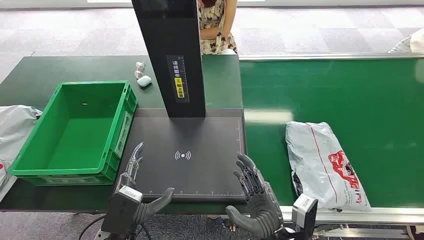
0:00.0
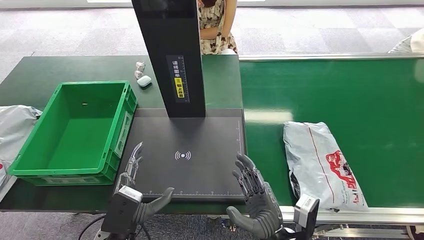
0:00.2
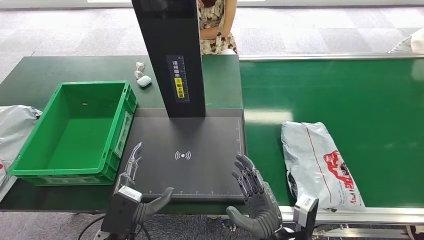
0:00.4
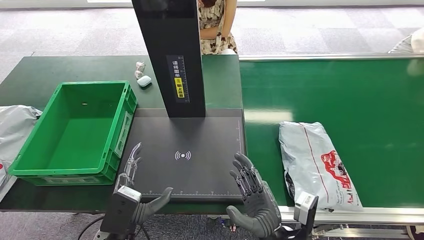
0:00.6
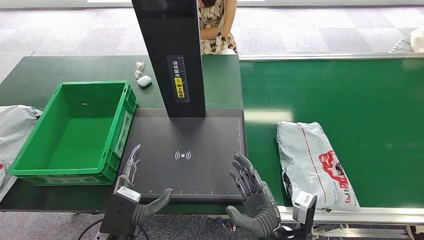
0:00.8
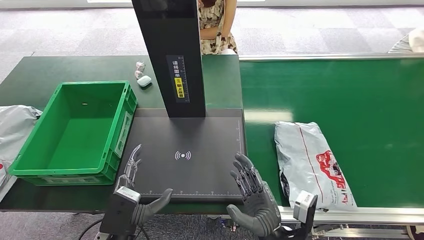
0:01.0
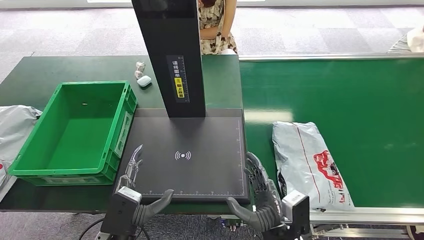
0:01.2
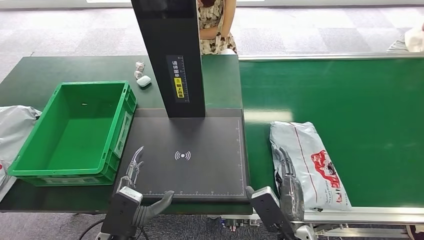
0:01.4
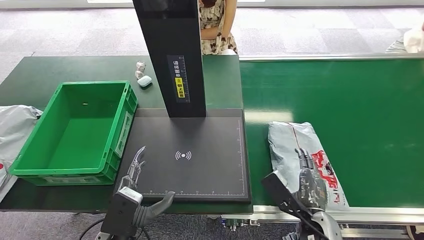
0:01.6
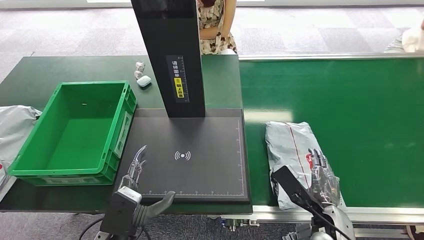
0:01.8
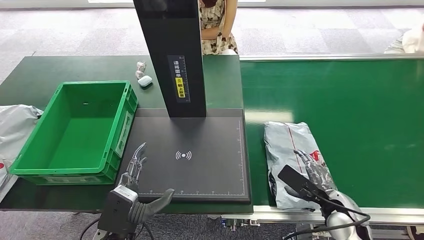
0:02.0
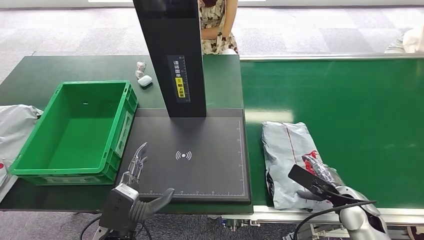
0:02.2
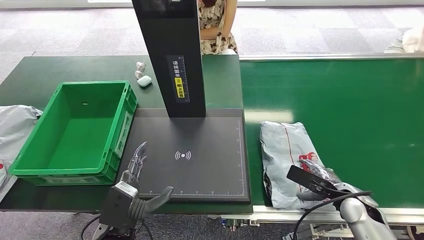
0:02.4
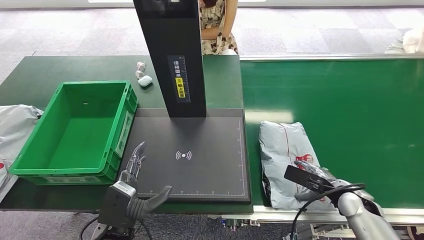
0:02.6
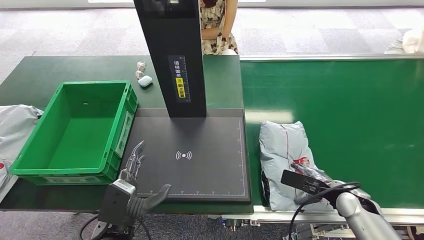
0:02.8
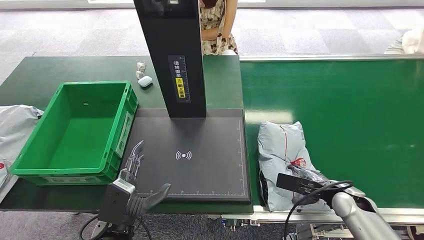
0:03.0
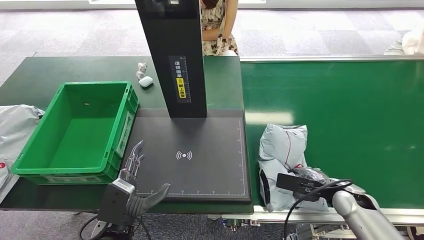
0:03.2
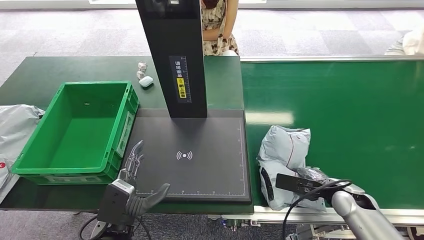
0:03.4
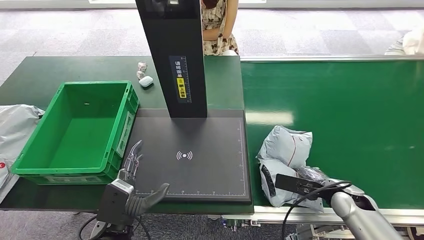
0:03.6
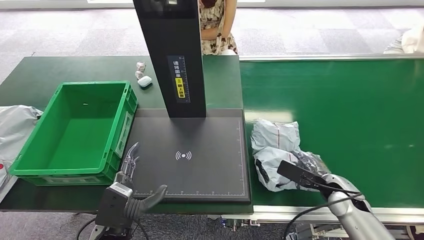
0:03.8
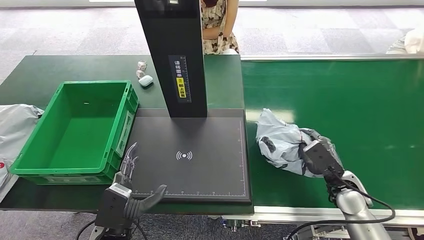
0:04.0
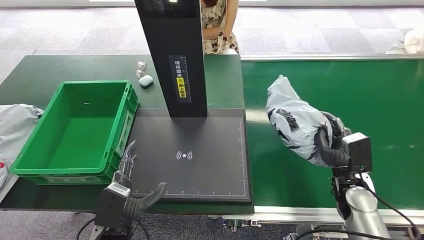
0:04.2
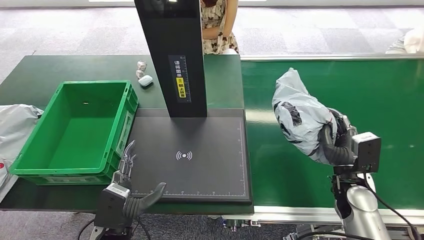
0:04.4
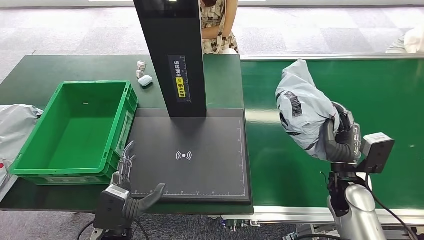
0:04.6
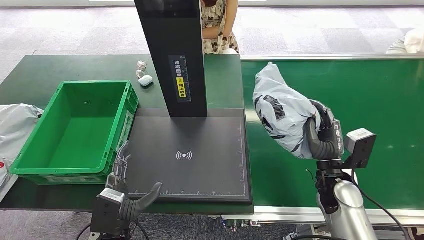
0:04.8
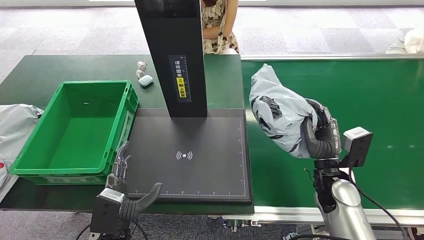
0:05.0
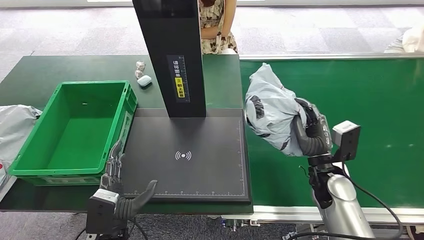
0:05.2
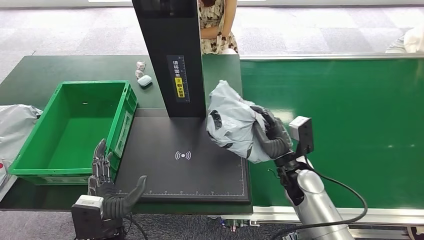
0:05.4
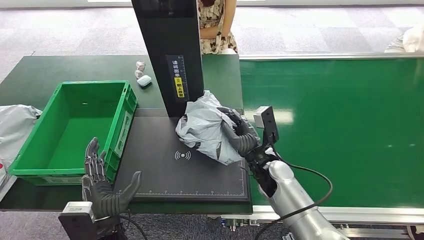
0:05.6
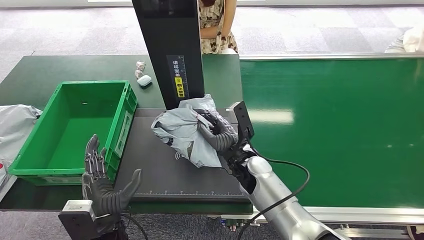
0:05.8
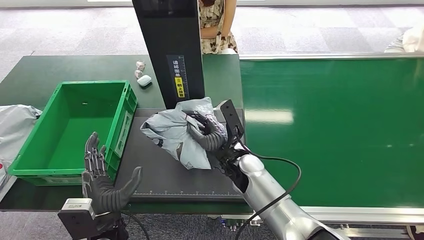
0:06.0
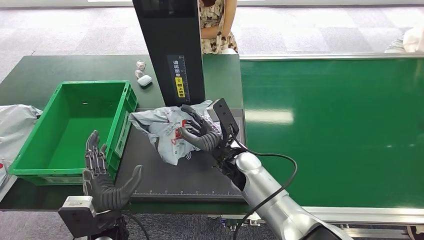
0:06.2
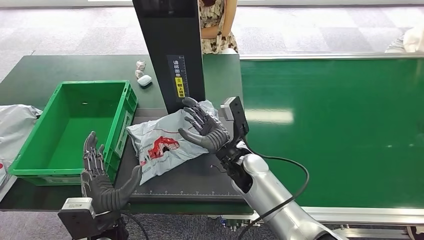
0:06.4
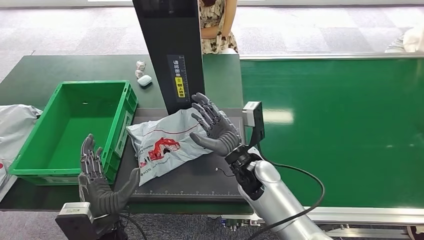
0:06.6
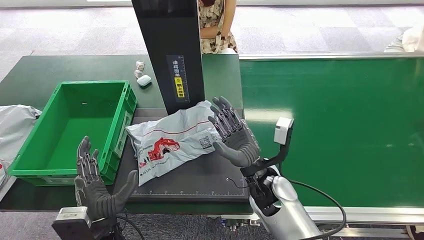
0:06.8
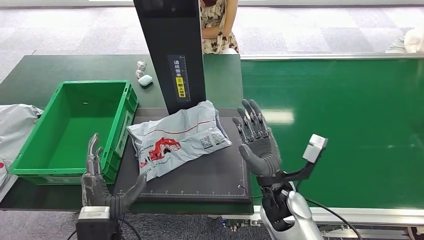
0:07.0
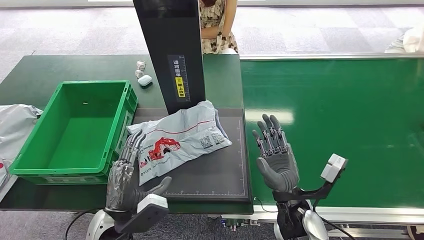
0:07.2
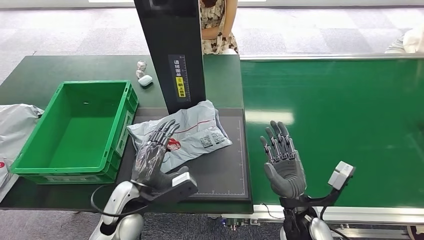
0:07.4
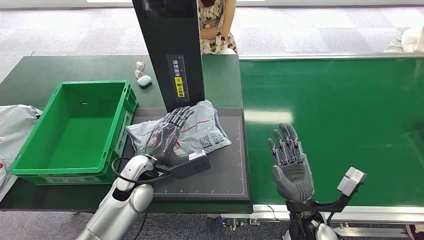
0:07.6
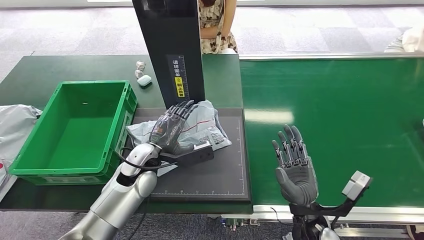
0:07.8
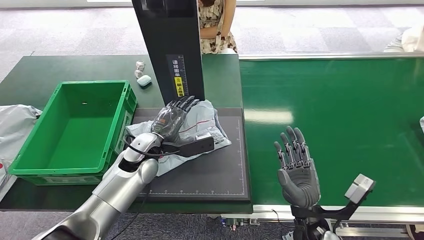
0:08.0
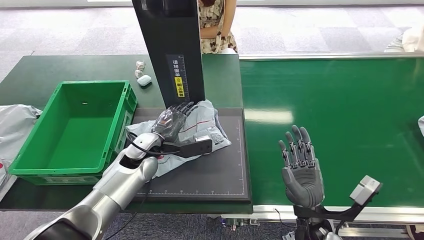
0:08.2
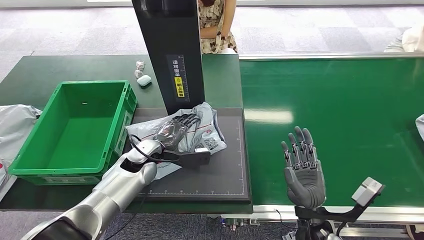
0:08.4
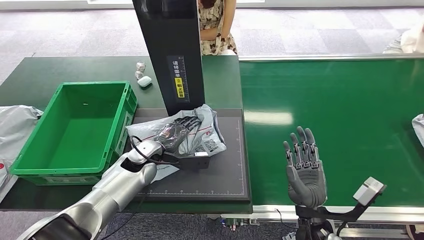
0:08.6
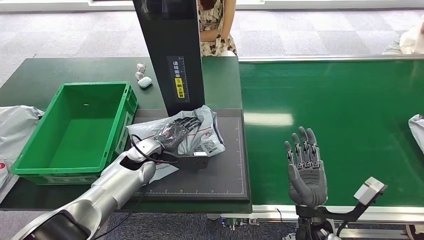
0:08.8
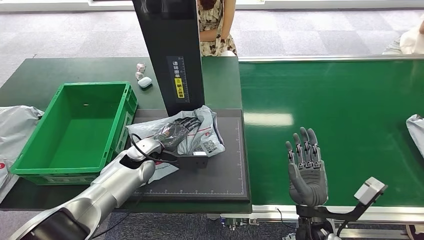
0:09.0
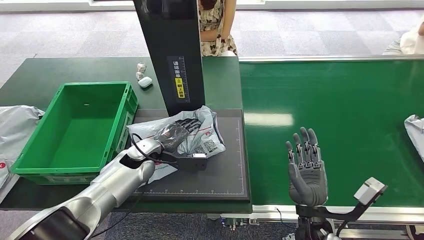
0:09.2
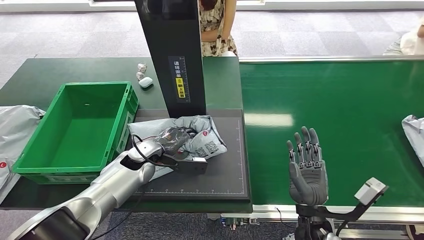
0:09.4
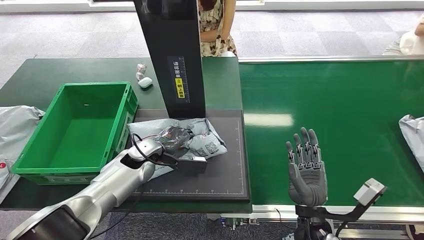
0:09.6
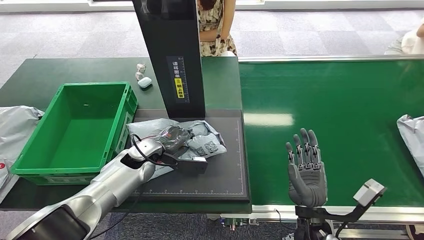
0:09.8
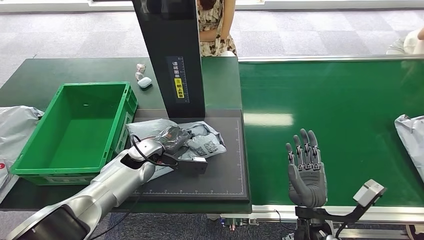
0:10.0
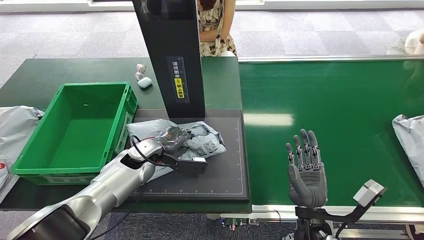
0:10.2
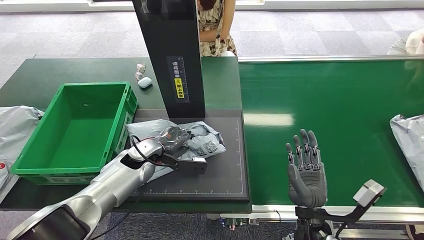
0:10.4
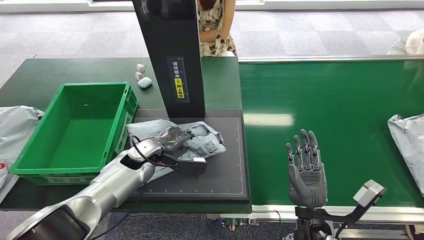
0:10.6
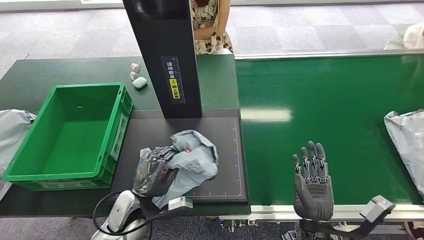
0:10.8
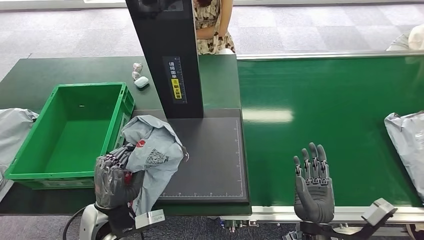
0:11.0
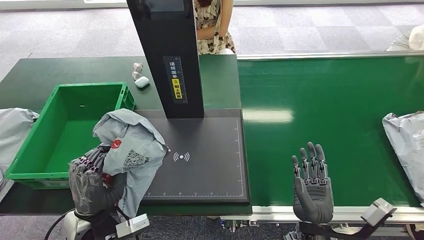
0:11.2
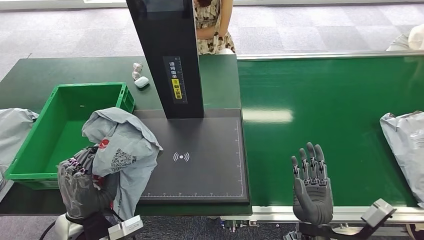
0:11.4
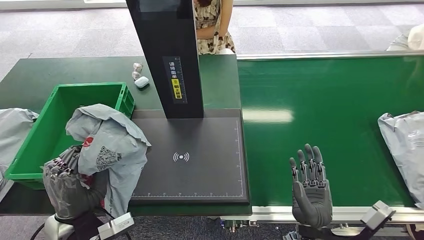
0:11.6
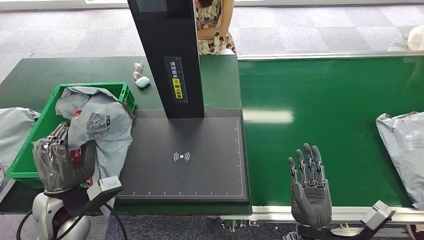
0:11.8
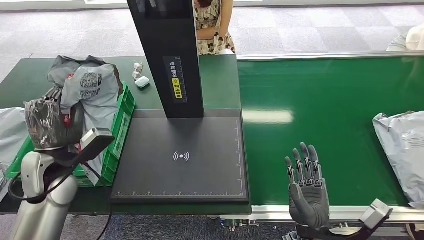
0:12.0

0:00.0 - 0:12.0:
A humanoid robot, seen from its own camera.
Step, 0:00.0 - 0:04.8: Pick up the package from the conveyor belt.
Step, 0:05.2 - 0:07.8: Place the package onto the inbound machine.
0:01.6 - 0:03.0: The right hand shifts roughly 15 cm to the right and forward.
0:03.0 - 0:04.4: The right hand heads upward, covering about 5 cm.
0:06.0 - 0:07.6: The left hand is displaced forward by roughly 10 cm; the right hand moves to the right and backward, some 20 cm.
0:09.0 - 0:10.4: The hands make only small movements.

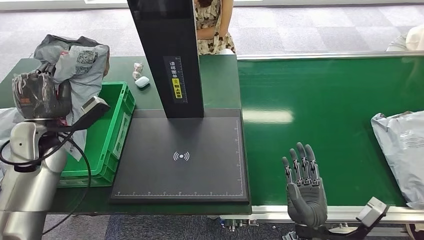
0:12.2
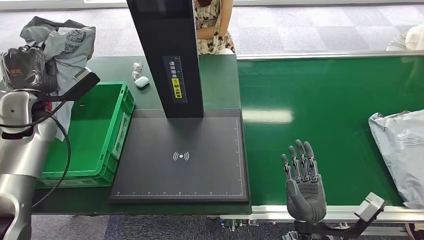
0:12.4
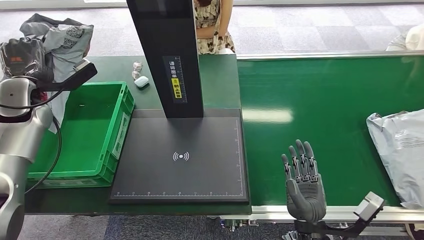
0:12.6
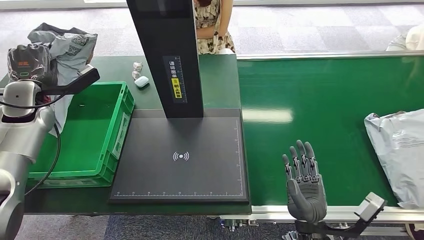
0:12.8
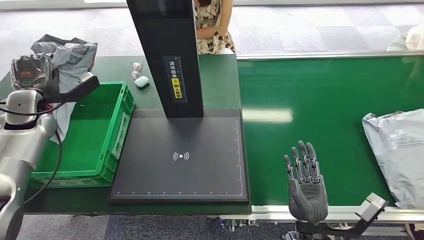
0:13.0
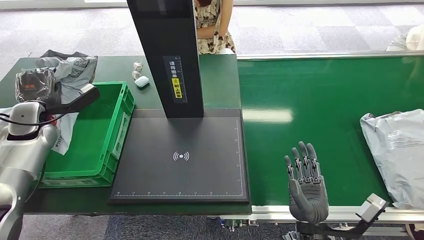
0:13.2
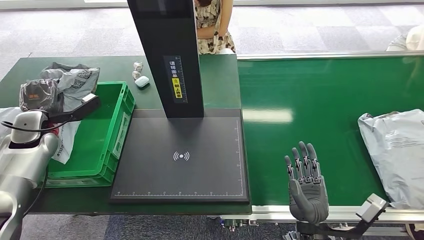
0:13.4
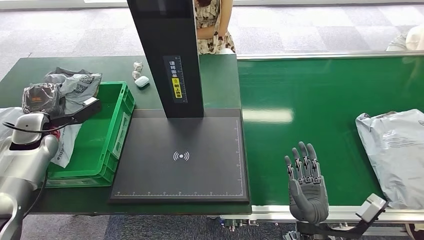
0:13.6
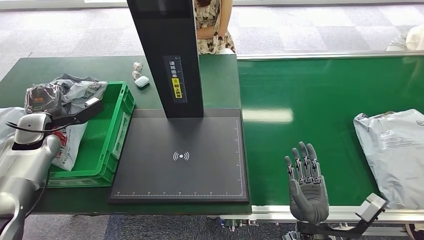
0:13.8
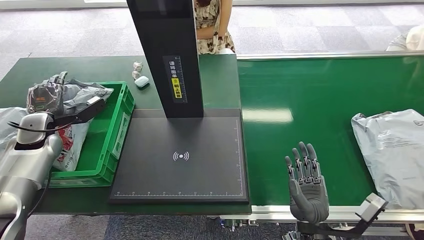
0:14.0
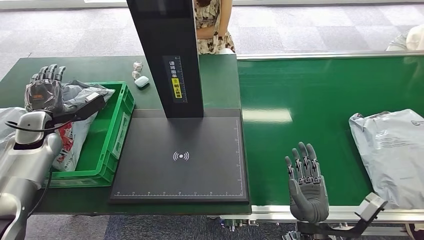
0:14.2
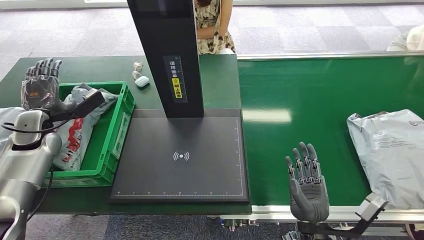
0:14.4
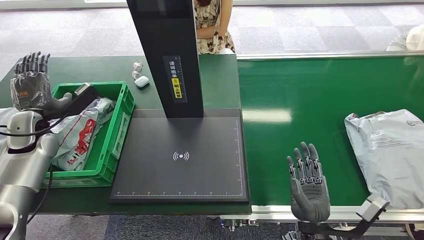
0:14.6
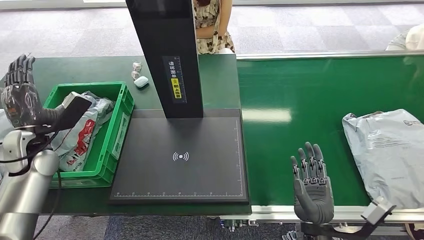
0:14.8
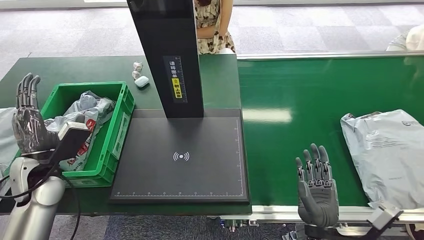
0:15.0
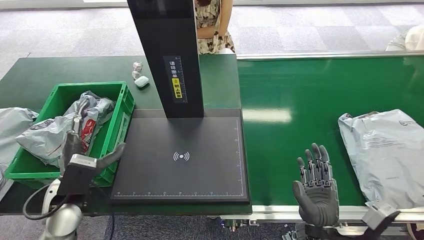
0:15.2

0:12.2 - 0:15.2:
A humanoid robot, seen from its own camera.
Step, 0:12.4 - 0:15.2: Place the package into the parcel locker.
0:12.2 - 0:13.8: The left hand moves to the left and forward, about 10 cm.
0:13.8 - 0:15.2: The left hand goes some 20 cm backward and to the right.

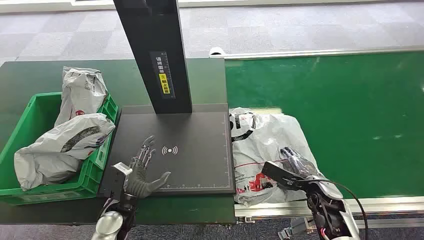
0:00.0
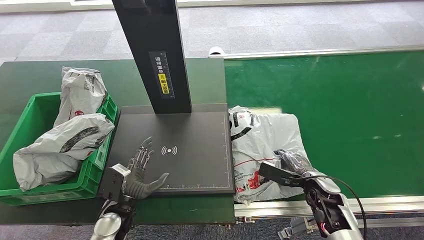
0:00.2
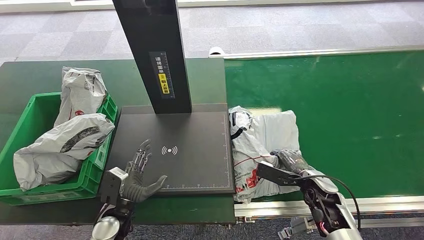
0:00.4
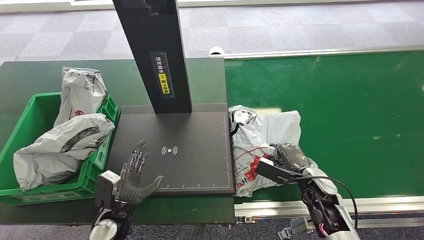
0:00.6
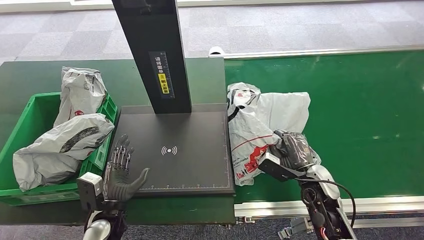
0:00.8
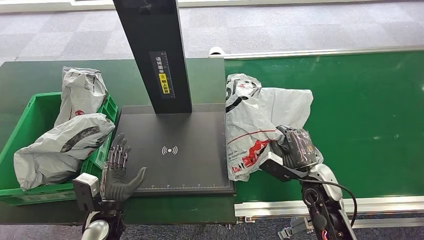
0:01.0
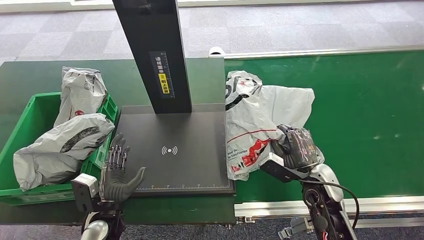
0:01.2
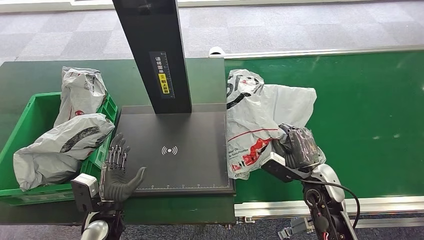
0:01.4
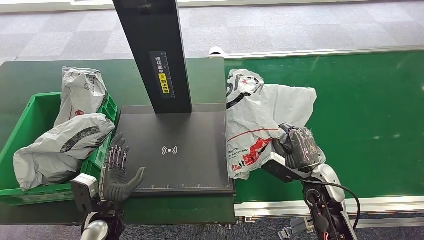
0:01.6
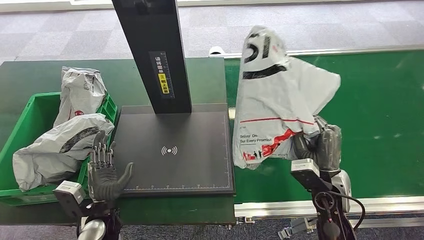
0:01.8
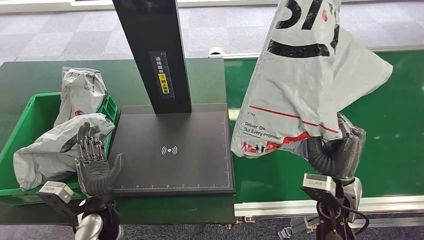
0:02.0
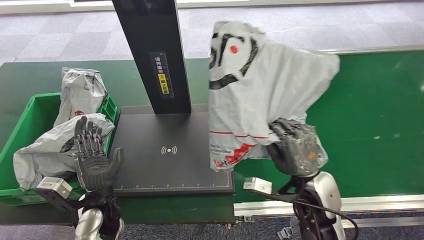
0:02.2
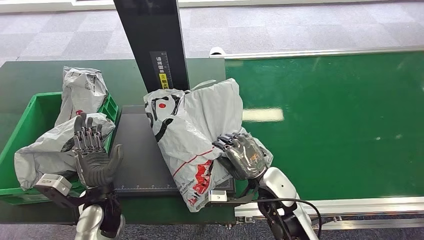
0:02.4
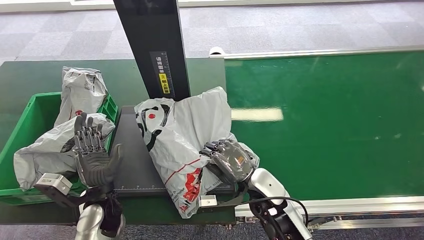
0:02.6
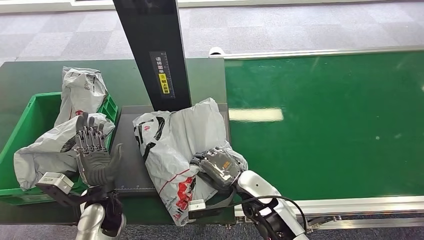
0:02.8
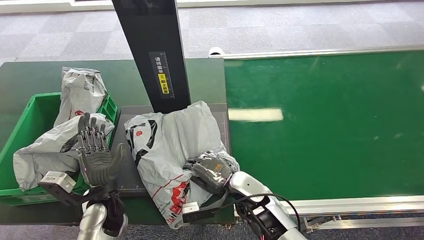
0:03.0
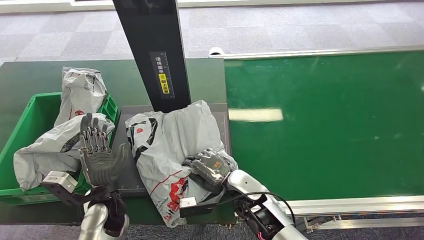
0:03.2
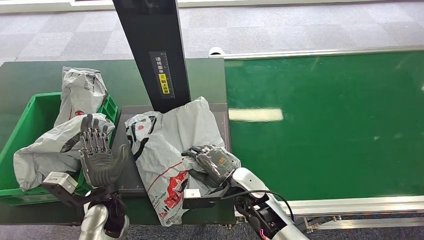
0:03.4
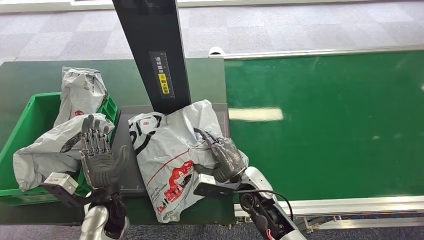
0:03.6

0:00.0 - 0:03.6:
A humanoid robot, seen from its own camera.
Step, 0:00.0 - 0:01.8: Pick up the package from the conveyor belt.
